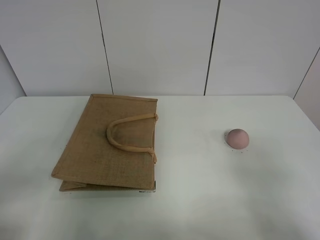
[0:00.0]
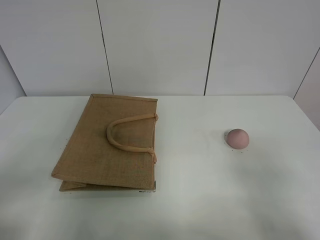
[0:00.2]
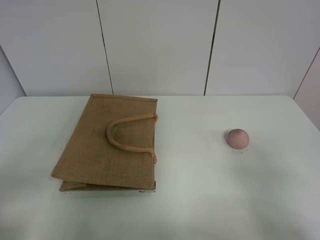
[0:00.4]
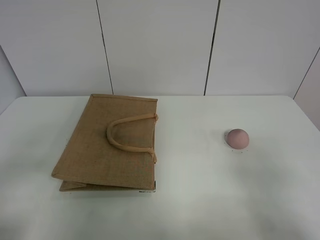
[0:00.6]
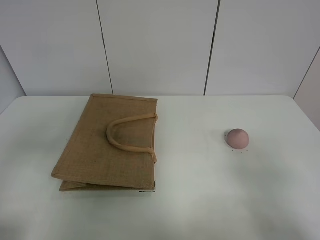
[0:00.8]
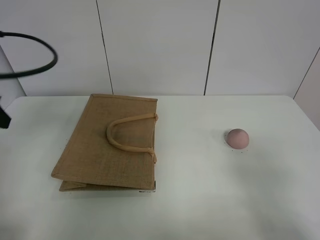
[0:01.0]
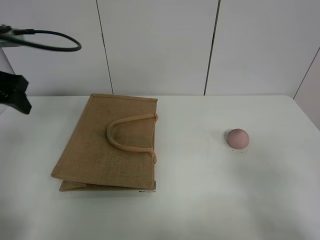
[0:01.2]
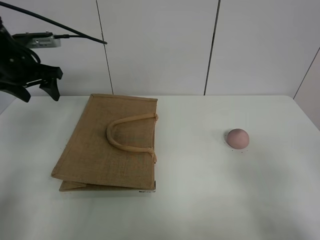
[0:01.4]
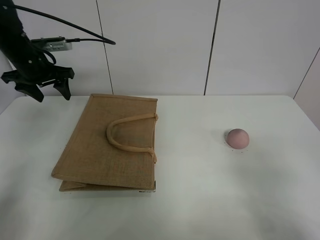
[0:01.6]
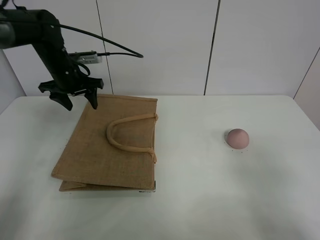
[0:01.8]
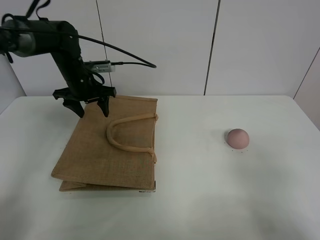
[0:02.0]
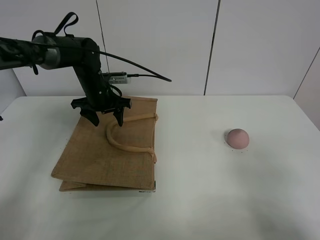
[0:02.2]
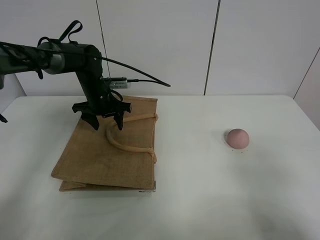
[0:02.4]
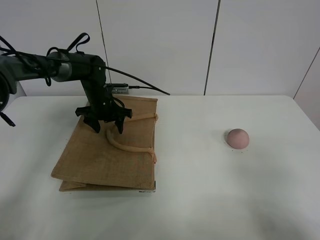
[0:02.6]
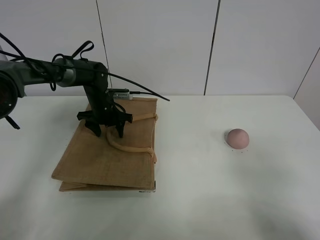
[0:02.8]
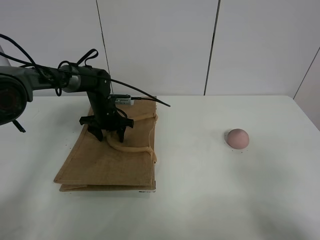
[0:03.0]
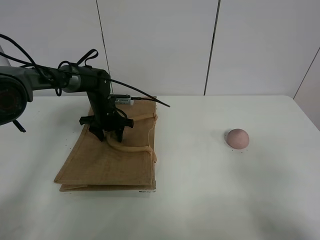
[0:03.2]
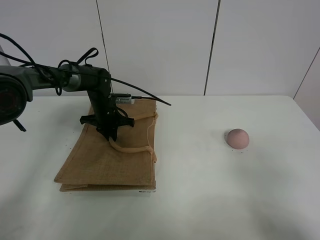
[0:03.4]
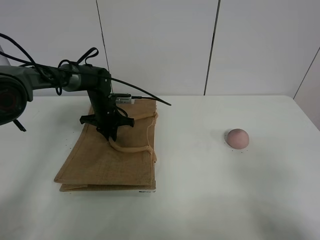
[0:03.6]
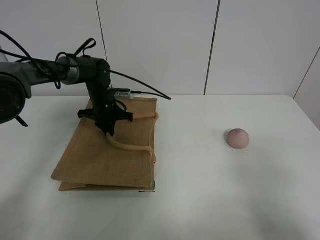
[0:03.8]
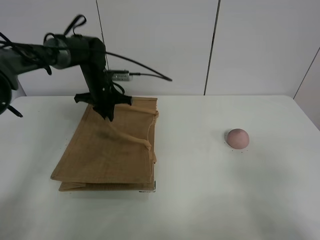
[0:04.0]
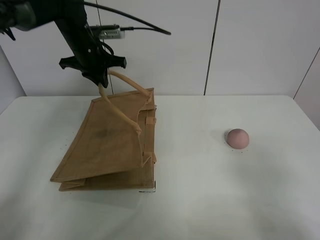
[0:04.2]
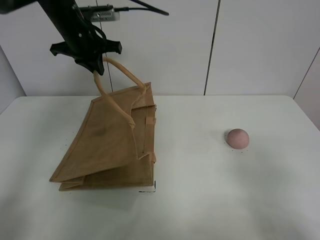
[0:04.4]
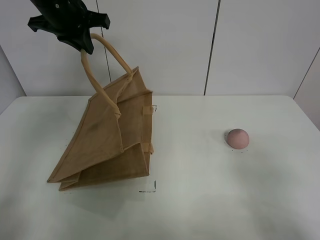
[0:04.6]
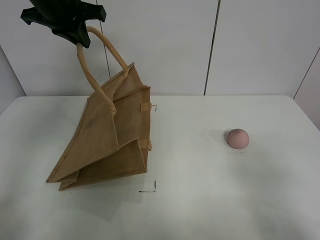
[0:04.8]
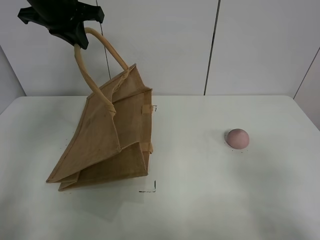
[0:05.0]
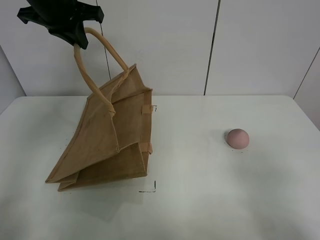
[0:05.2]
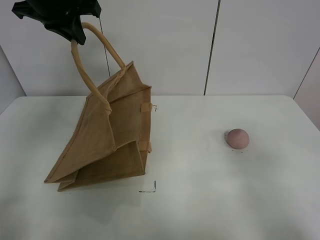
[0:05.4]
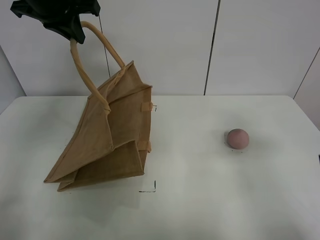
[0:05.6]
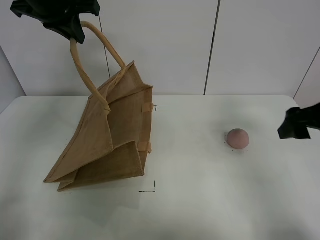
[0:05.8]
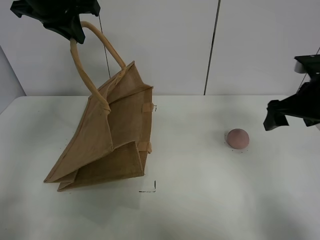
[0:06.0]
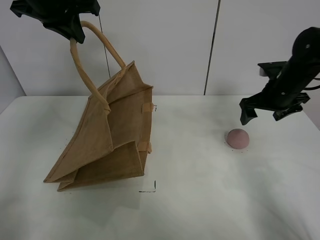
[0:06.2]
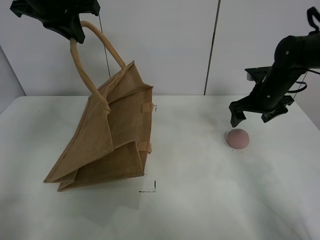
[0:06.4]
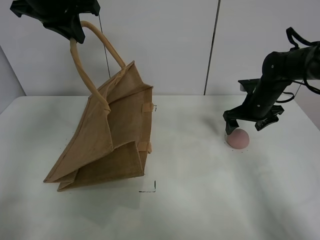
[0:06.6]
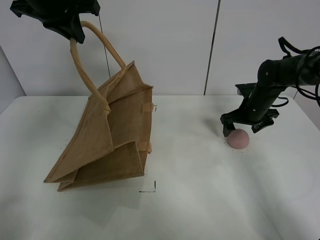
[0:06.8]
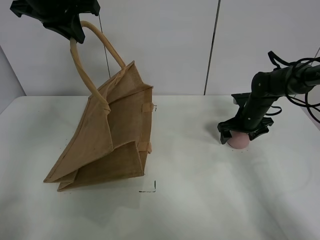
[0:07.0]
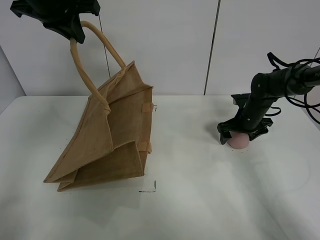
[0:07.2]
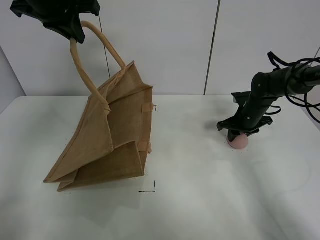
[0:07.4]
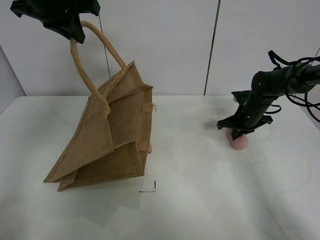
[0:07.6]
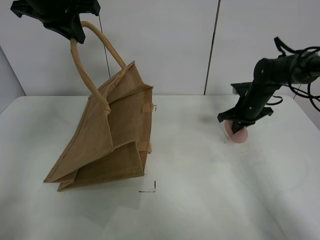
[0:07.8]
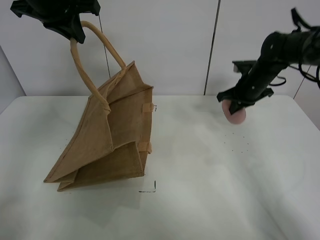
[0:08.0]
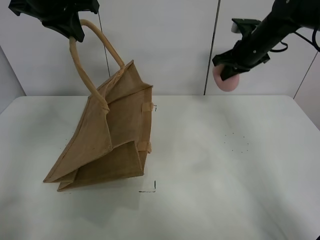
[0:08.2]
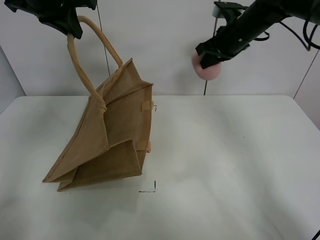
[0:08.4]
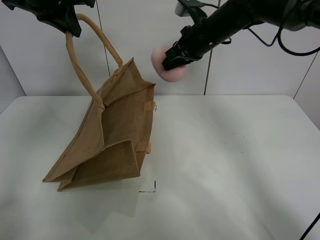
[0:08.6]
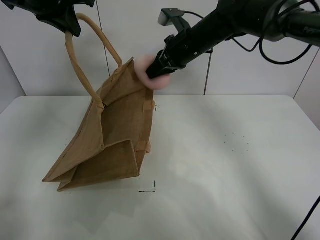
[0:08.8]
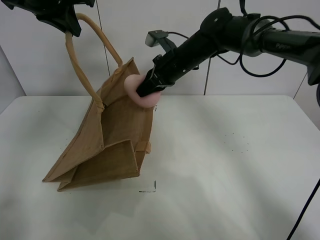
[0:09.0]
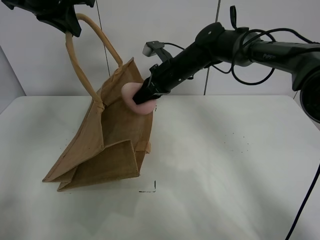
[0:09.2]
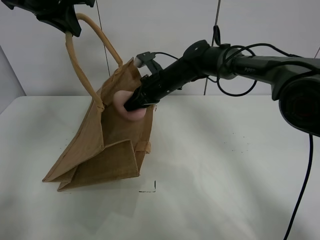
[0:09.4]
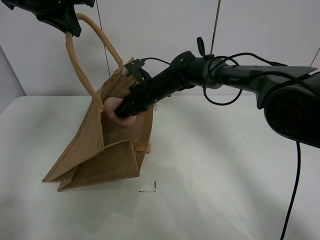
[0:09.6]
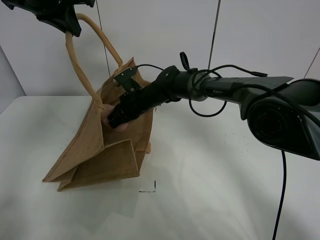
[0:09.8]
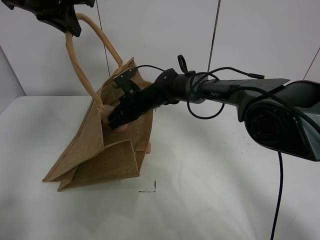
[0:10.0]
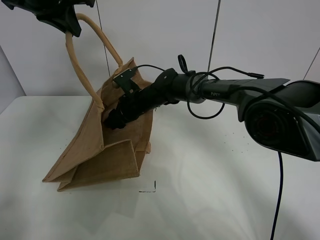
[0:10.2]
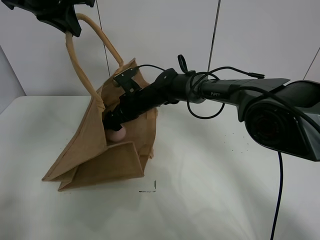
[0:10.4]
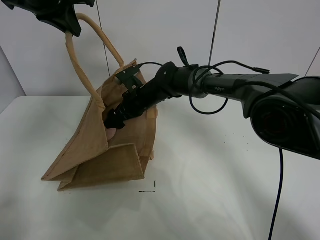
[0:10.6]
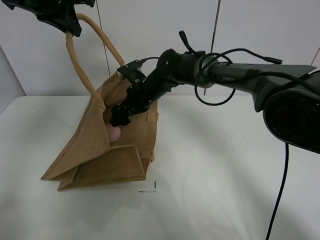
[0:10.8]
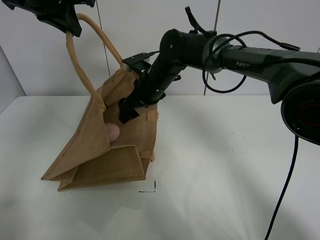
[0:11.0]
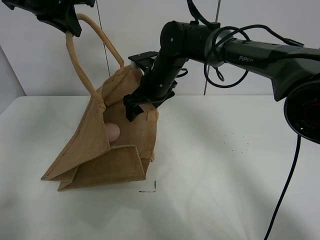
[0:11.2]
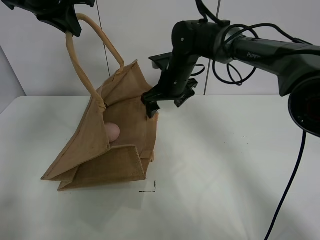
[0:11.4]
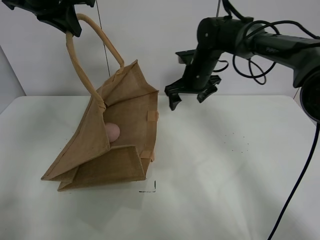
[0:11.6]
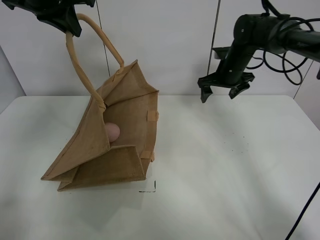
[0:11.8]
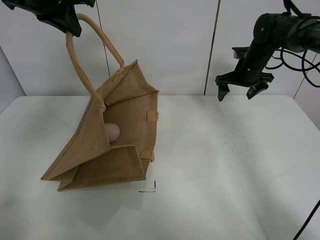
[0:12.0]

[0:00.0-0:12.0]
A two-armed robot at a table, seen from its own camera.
Task of the whole recording: open the brown linen bag and put the peach in the bag.
Step, 0:00.0 to 0:04.8: Lift the handbag with left gripper.
Step, 0:05.0 to 0:07.4: Grasp the peach with right gripper.
Step, 0:07.6 to 0:11.4: Place the peach in the handbag with right gripper.
0:00.0 to 0:01.6: The left gripper travels forward by approximately 40 cm.
0:01.6 to 0:03.0: The left gripper shifts some 20 cm downward and to the right.
0:03.0 to 0:04.4: The left gripper shifts approximately 25 cm upward, and closes its fingers.
0:04.4 to 0:06.0: The right gripper moves forward, approximately 30 cm. The left gripper goes approximately 10 cm upward and backward.
0:06.0 to 0:07.6: The right gripper travels downward and forward by approximately 20 cm, and closes.
0:07.6 to 0:09.0: The right gripper moves to the left and upward, roughly 25 cm.
0:09.0 to 0:10.4: The right gripper heads downward and to the left, covering about 15 cm, and opens its fingers.
0:10.4 to 0:12.0: The right gripper goes about 30 cm to the right.

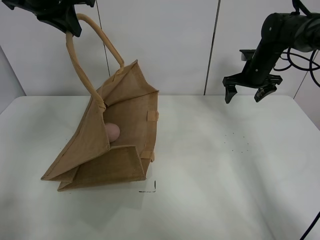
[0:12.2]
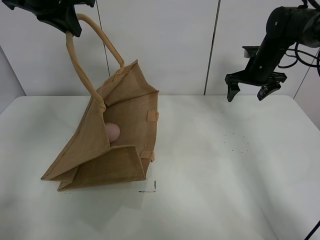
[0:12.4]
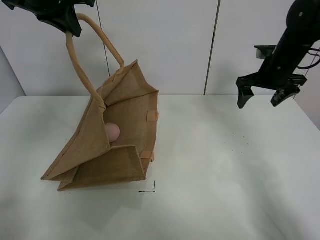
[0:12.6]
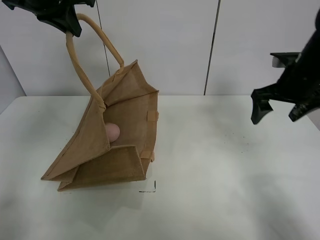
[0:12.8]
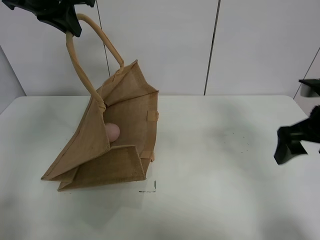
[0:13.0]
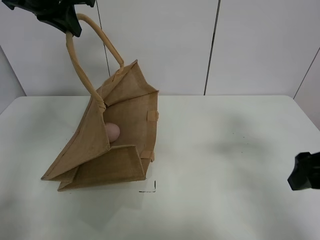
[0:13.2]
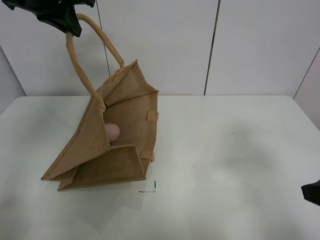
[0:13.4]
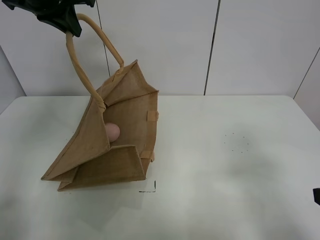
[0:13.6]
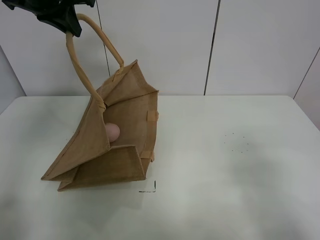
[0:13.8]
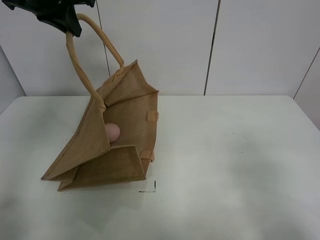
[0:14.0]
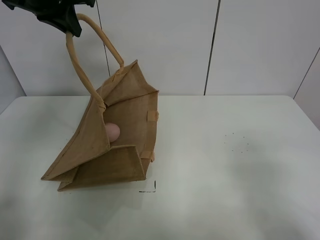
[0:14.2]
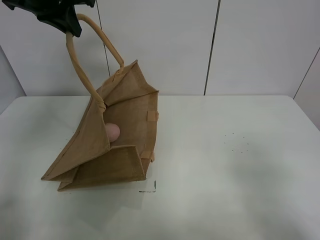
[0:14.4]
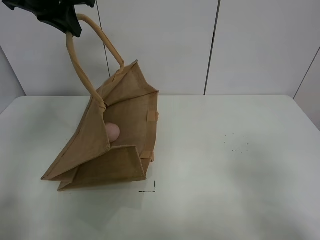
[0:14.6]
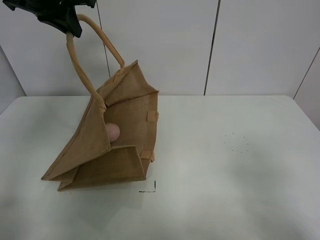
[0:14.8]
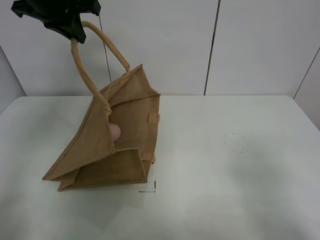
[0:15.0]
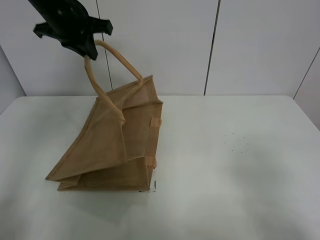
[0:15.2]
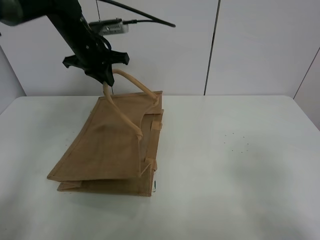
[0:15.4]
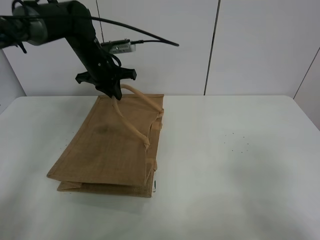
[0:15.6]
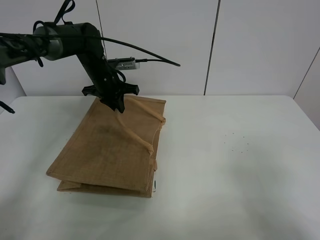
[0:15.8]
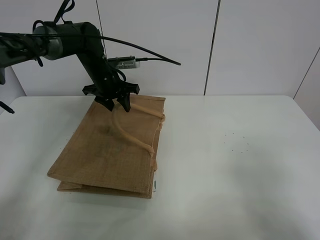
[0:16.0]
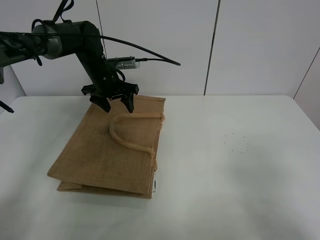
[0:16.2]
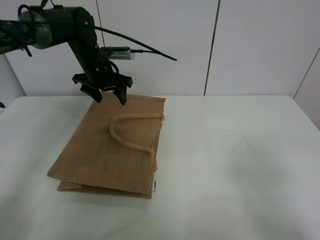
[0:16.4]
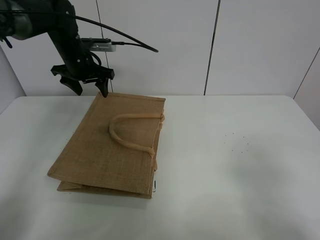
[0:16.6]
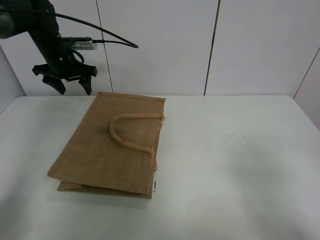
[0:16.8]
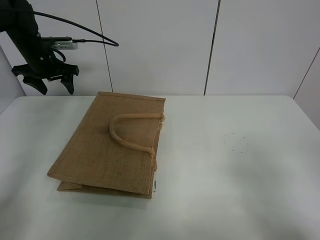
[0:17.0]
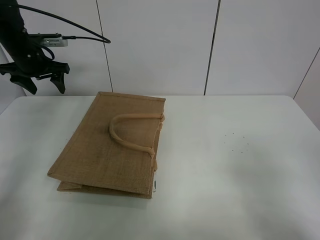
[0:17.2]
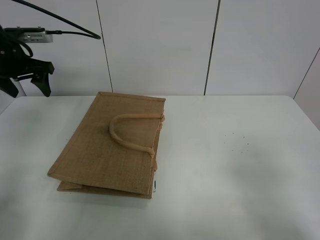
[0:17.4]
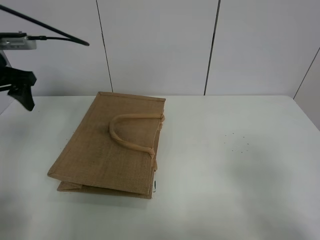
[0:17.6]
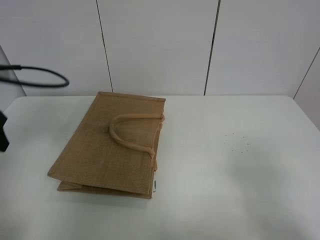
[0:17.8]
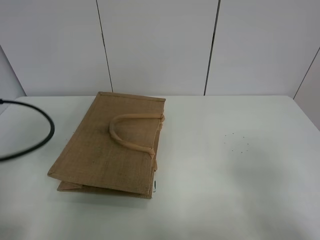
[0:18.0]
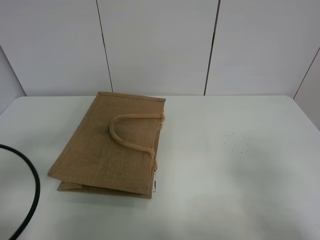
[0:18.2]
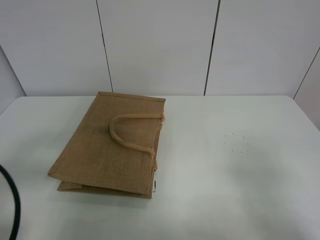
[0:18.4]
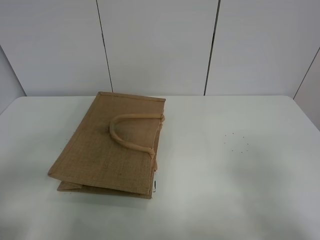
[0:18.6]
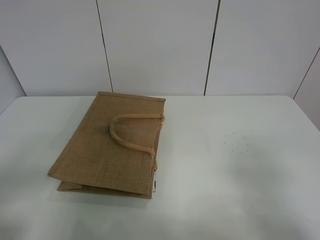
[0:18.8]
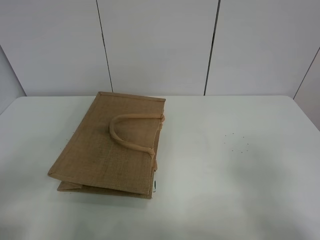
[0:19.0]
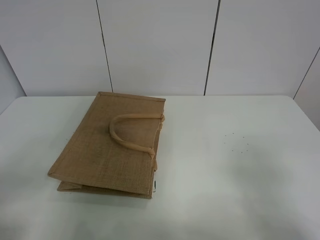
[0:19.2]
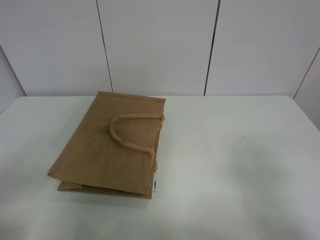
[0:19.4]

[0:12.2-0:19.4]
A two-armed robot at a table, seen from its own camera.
Task of the whole recording: open the brown linen bag and put the peach in the bag.
Step, 0:12.2 to 0:16.4: Put down the handbag with left grippe.
0:12.2 to 0:13.6: The right gripper is displaced backward by about 40 cm.
0:13.6 to 0:15.0: The grippers move only a little.
0:15.0 to 0:16.6: The left gripper shifts roughly 15 cm downward and forward, and opens up.
0:16.6 to 0:18.0: The left gripper shifts some 30 cm backward.
0:18.0 to 0:19.4: The left gripper goes roughly 15 cm backward.
